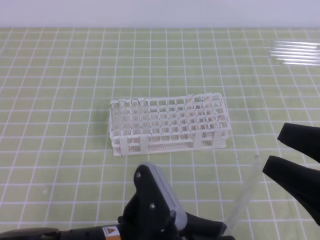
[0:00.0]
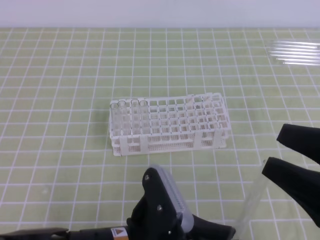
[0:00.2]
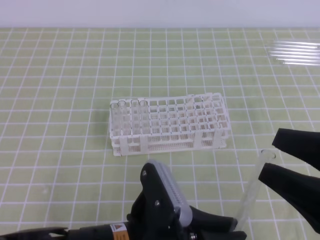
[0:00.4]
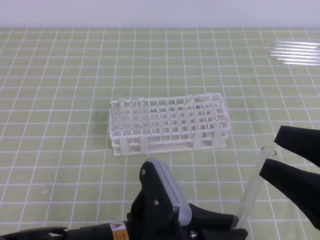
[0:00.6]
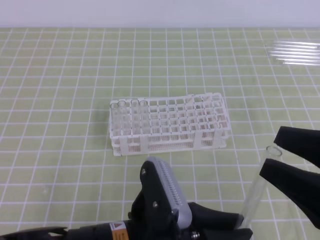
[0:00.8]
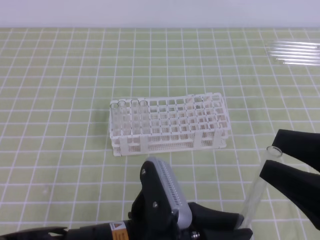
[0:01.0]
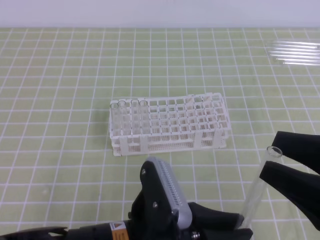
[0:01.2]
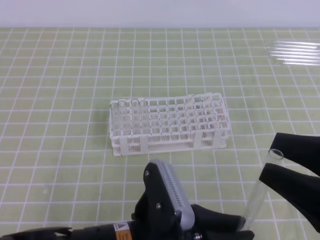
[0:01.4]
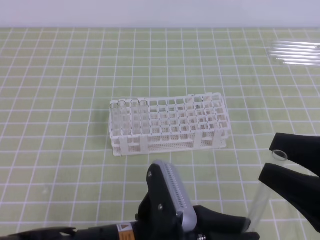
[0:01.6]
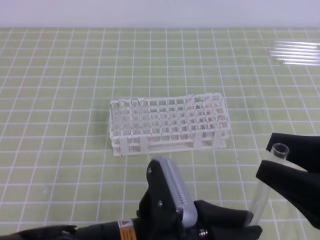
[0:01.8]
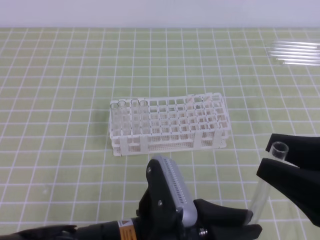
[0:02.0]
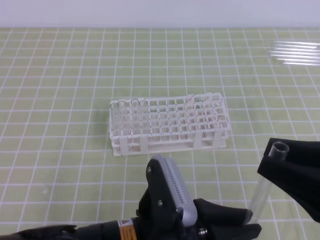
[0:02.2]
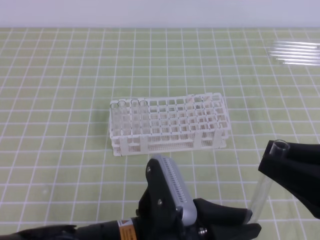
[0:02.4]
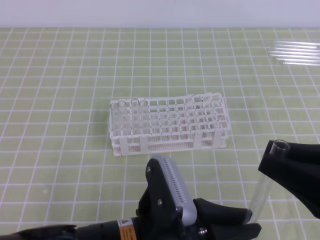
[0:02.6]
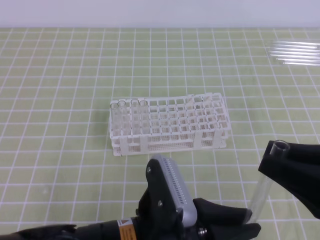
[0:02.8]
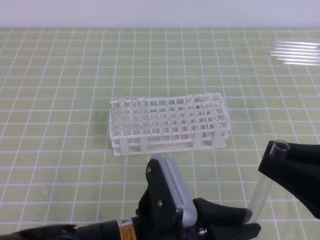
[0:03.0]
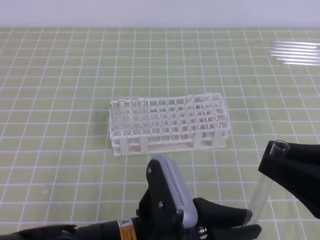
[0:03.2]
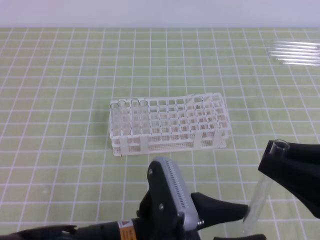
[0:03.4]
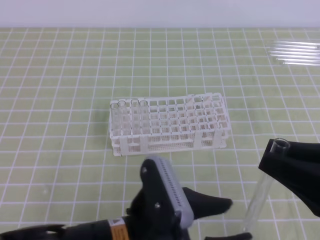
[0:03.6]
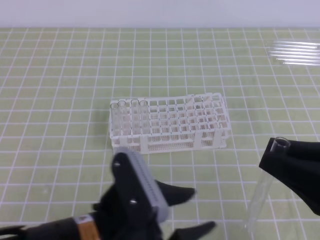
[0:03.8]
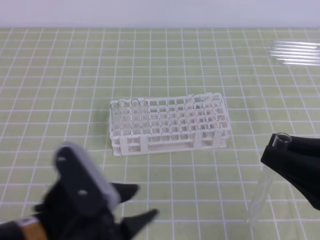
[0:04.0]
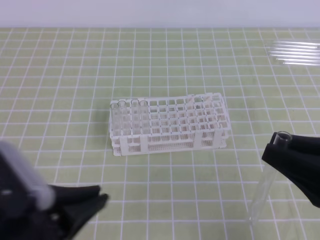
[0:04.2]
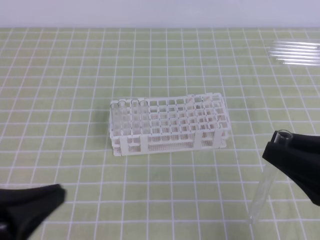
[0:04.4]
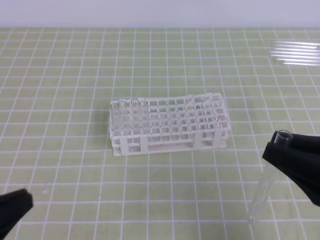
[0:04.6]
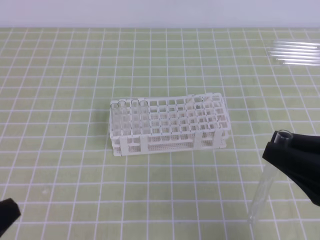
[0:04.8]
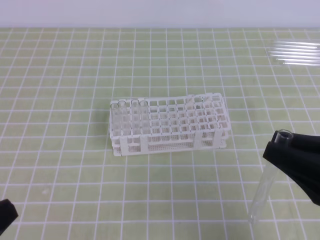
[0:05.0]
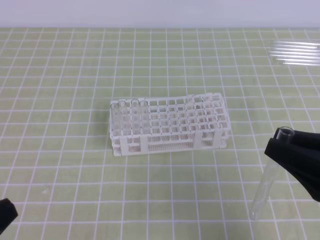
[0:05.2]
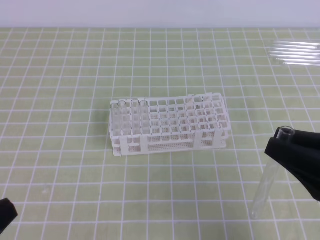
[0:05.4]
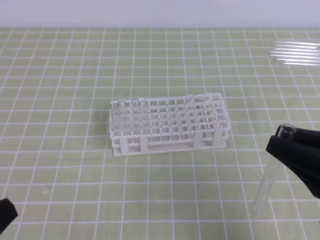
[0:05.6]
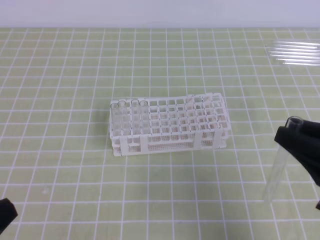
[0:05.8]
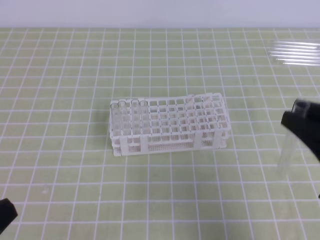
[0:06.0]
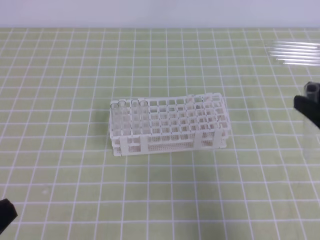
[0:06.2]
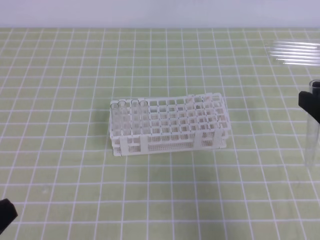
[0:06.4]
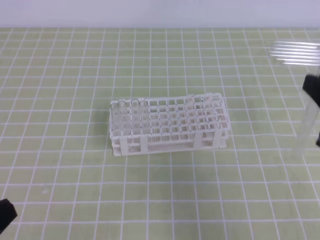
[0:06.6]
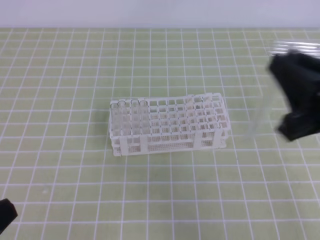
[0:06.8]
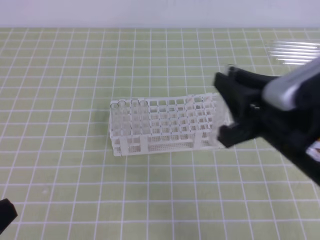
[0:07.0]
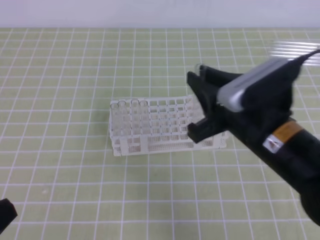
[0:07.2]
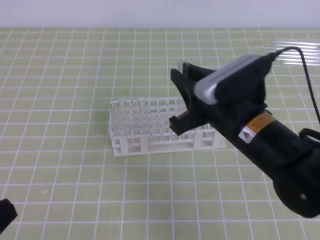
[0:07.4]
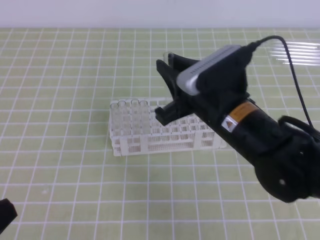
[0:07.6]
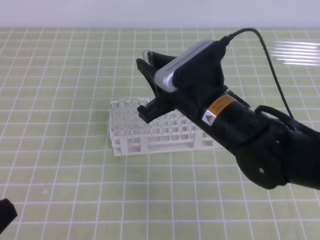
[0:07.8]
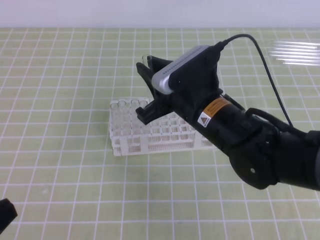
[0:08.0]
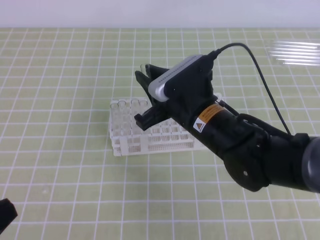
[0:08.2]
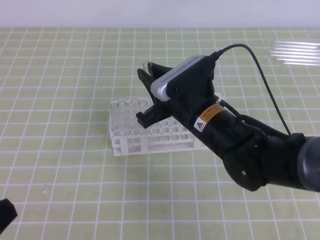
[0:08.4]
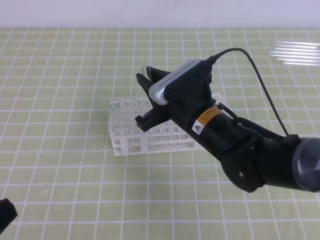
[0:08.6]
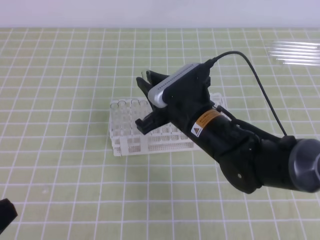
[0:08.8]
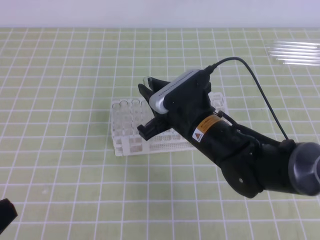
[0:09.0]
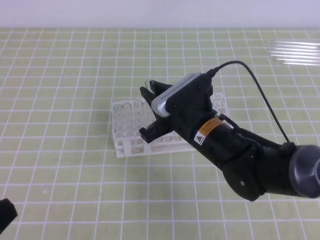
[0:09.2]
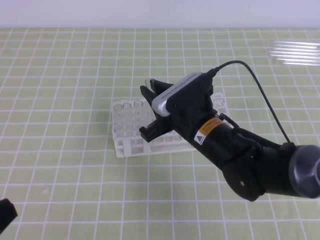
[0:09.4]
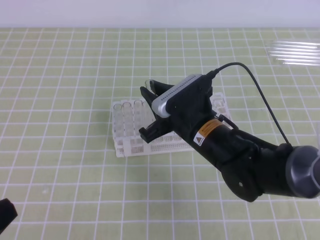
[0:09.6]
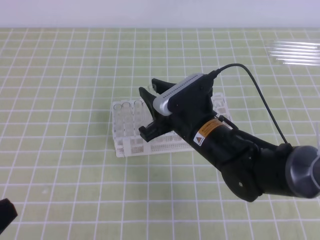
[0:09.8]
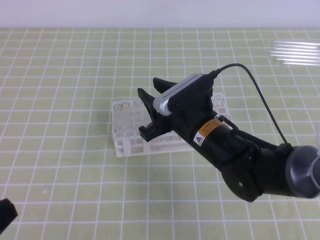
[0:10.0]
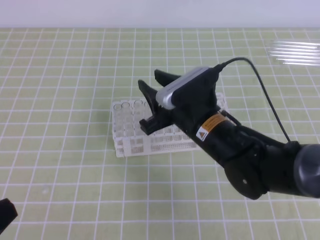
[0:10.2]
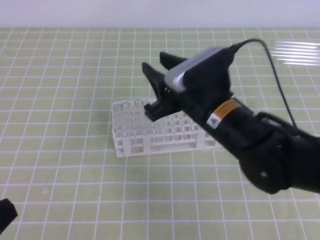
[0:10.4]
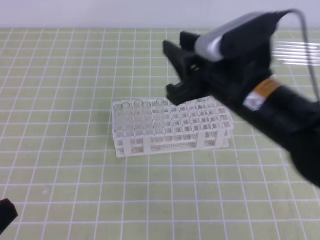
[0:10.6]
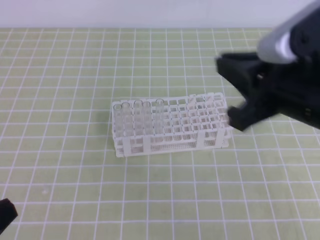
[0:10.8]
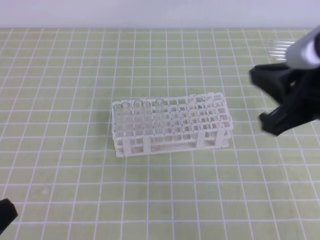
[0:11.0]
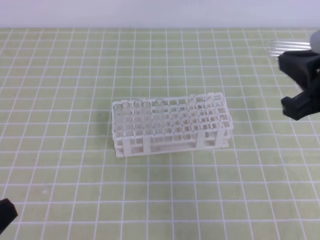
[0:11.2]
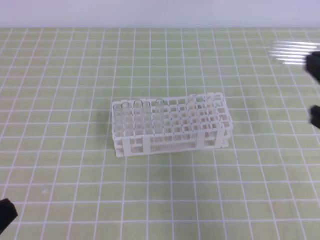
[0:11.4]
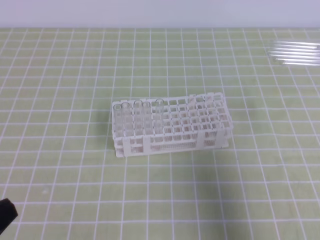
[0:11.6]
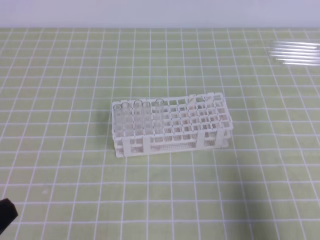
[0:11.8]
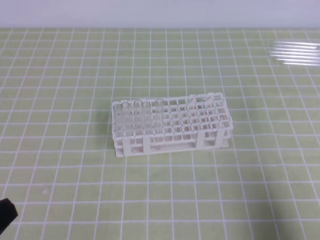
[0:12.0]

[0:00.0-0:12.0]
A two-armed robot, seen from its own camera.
0:00.0 to 0:01.6: The grippers stay close to where they were, moving slightly.
0:01.6 to 0:03.0: The right gripper closes up.
0:03.0 to 0:04.4: The left gripper travels to the left and upward by approximately 15 cm, and opens, then closes again.
0:04.4 to 0:06.0: The left gripper heads to the left, covering approximately 10 cm.
0:06.0 to 0:07.6: The right gripper goes roughly 20 cm to the left and forward.
0:07.6 to 0:09.0: The right gripper goes approximately 5 cm downward.
0:09.0 to 0:10.4: The right gripper opens.
0:10.4 to 0:12.0: The right gripper shifts approximately 30 cm to the right and backward, and closes.
